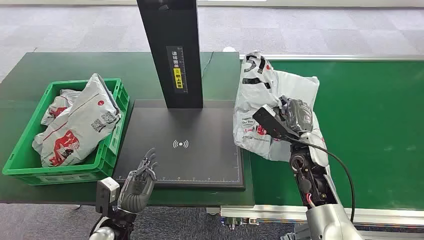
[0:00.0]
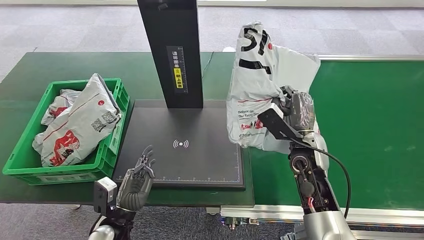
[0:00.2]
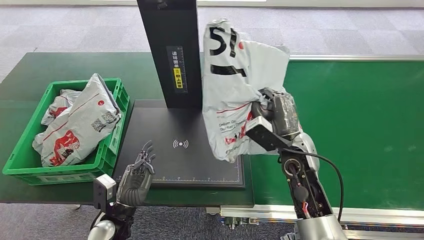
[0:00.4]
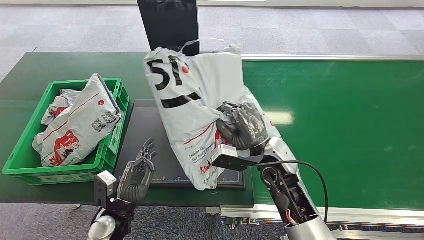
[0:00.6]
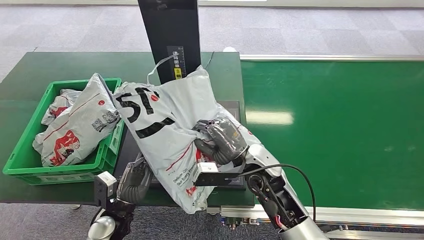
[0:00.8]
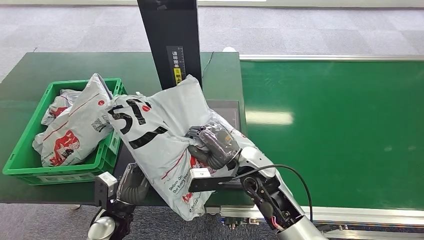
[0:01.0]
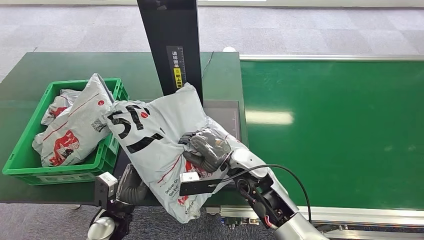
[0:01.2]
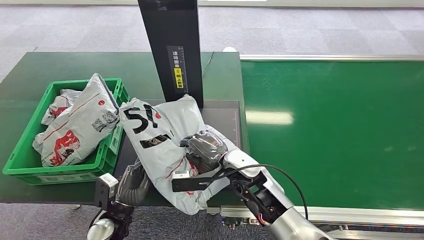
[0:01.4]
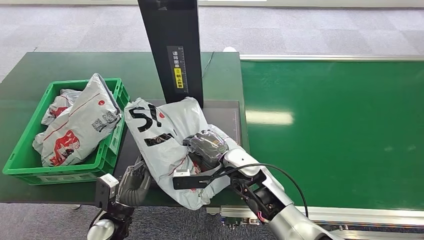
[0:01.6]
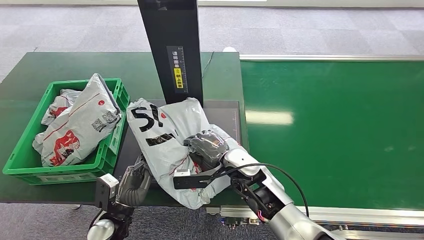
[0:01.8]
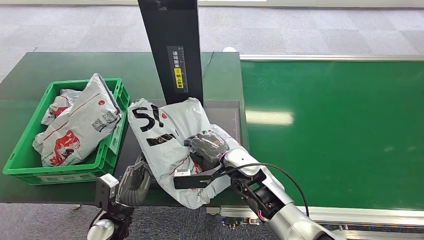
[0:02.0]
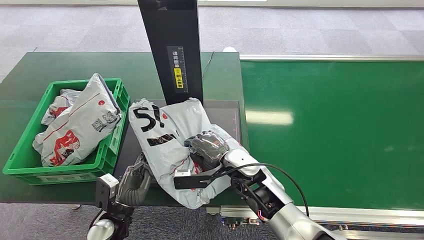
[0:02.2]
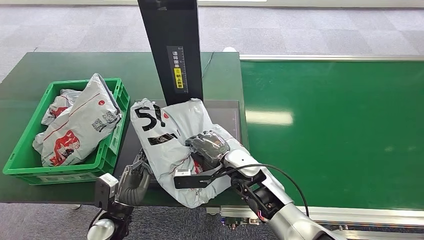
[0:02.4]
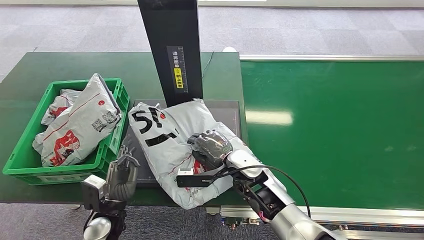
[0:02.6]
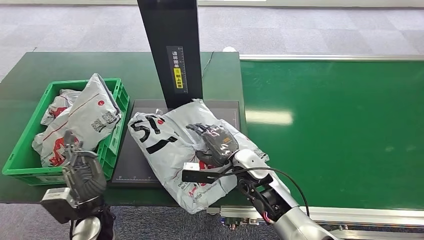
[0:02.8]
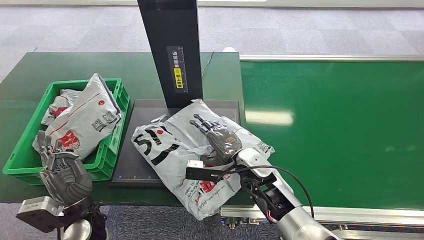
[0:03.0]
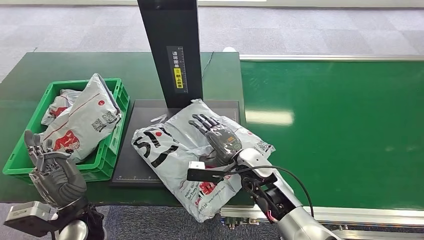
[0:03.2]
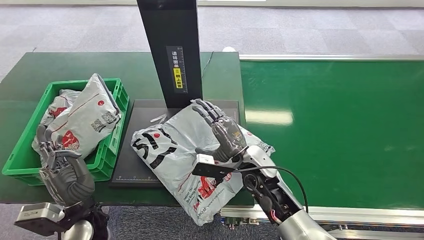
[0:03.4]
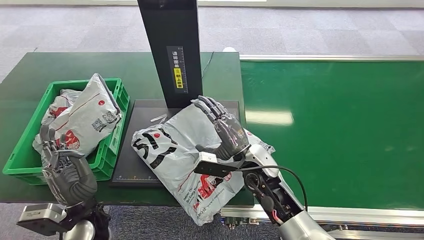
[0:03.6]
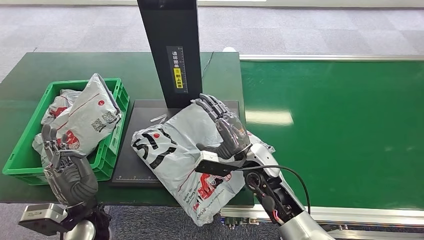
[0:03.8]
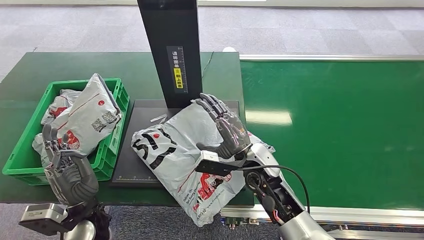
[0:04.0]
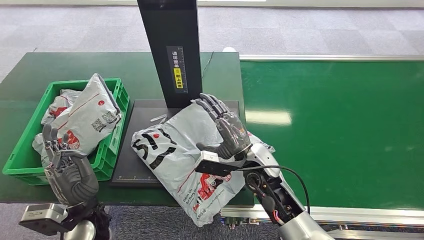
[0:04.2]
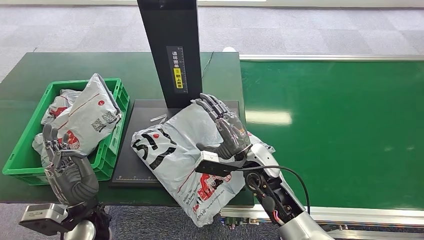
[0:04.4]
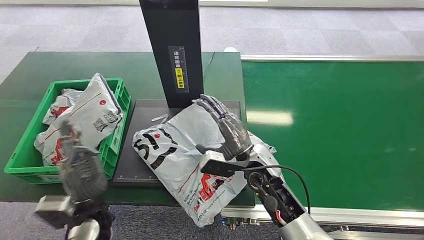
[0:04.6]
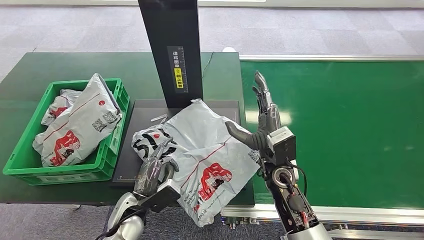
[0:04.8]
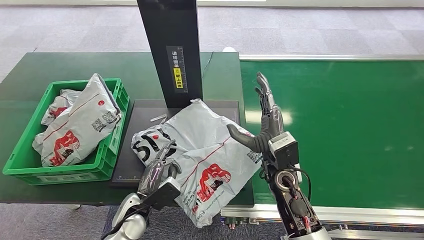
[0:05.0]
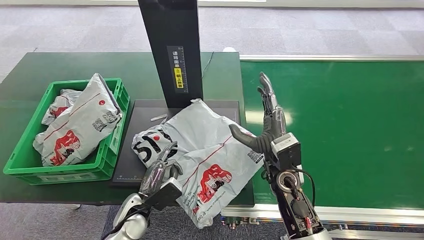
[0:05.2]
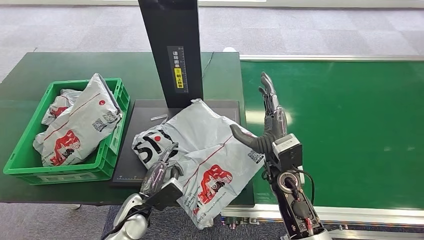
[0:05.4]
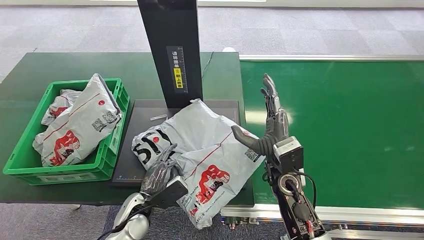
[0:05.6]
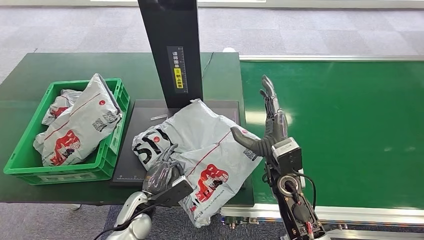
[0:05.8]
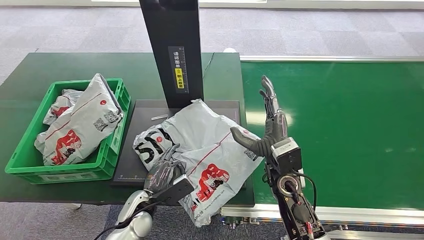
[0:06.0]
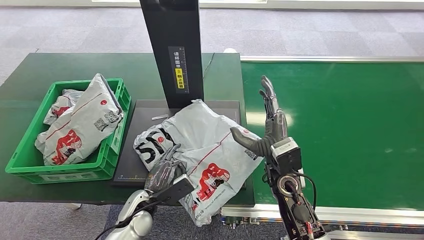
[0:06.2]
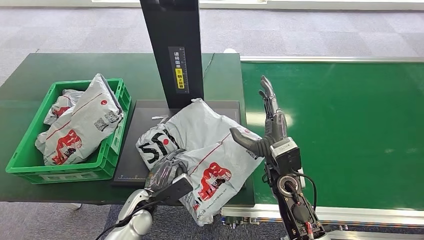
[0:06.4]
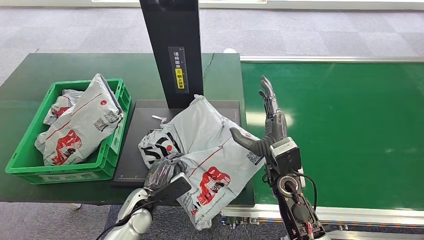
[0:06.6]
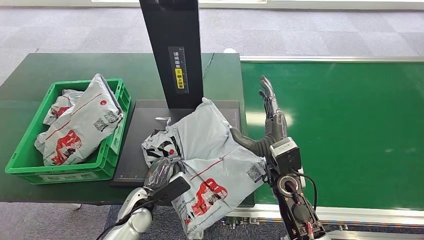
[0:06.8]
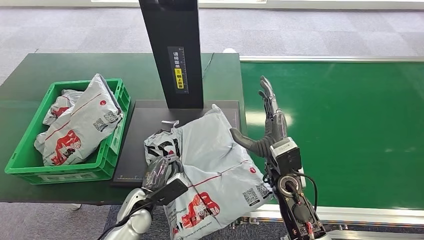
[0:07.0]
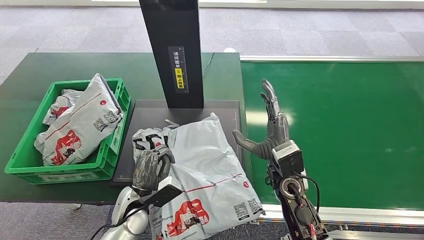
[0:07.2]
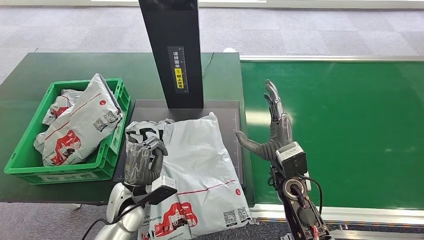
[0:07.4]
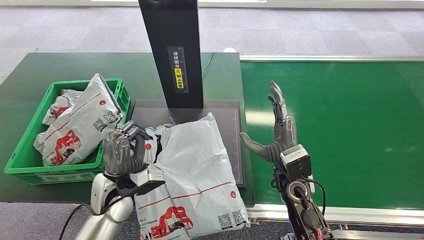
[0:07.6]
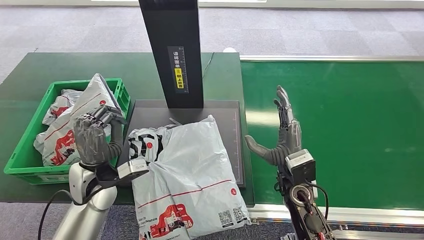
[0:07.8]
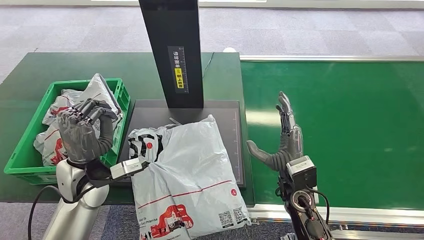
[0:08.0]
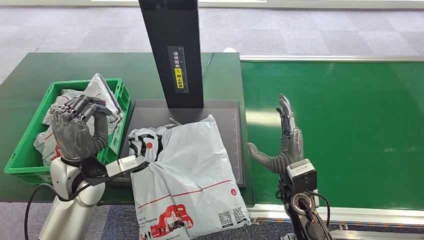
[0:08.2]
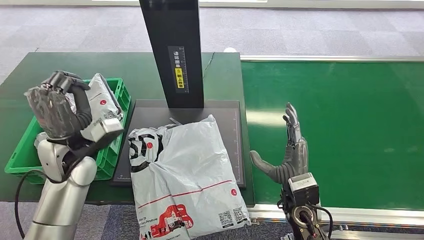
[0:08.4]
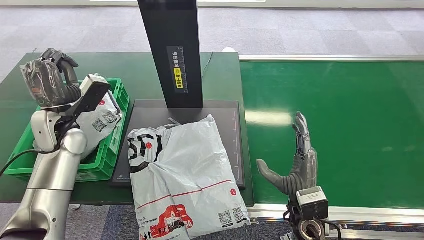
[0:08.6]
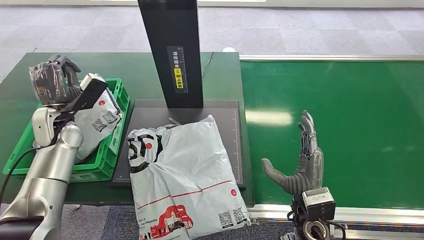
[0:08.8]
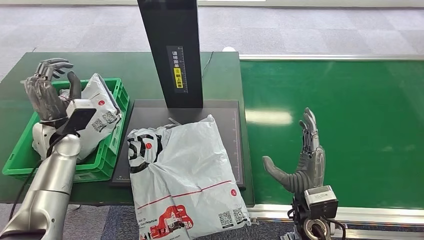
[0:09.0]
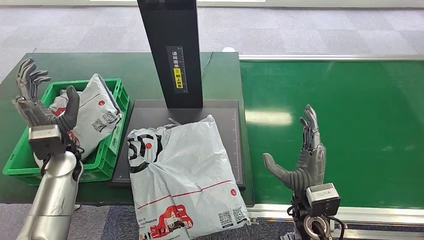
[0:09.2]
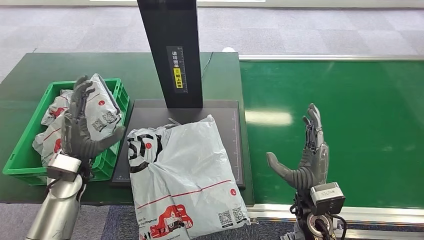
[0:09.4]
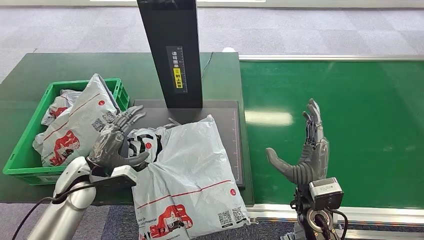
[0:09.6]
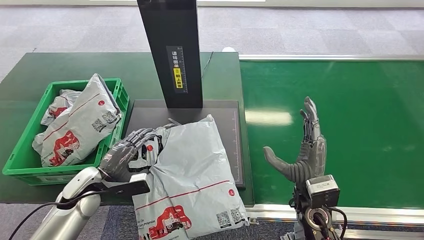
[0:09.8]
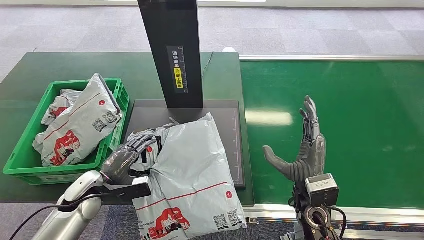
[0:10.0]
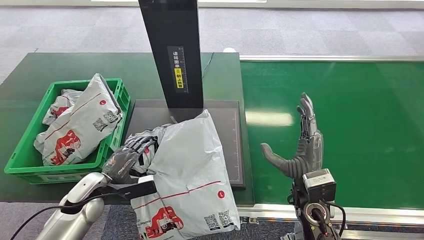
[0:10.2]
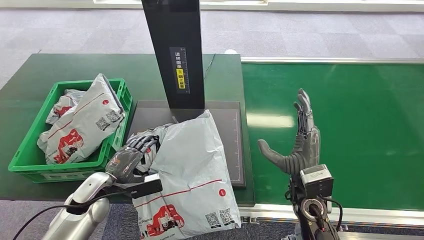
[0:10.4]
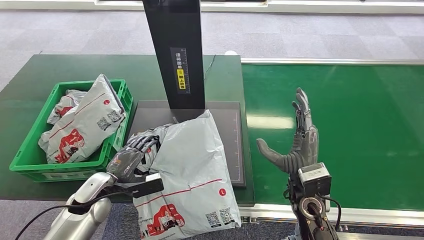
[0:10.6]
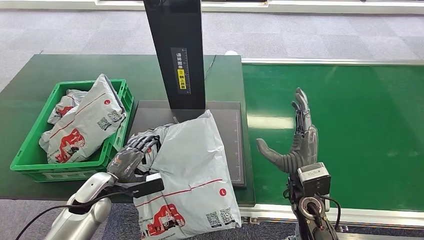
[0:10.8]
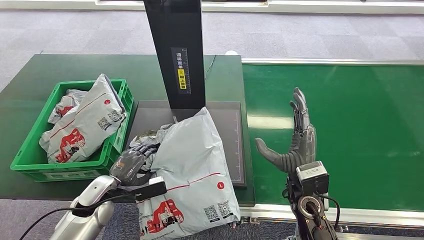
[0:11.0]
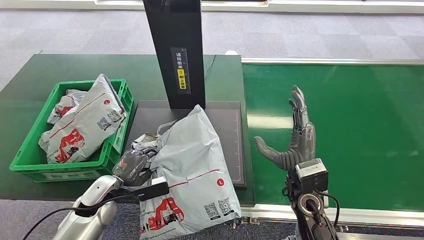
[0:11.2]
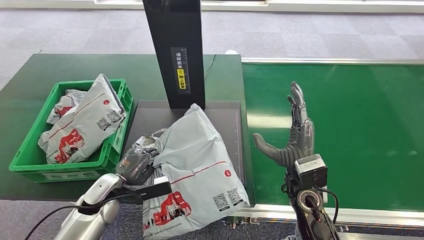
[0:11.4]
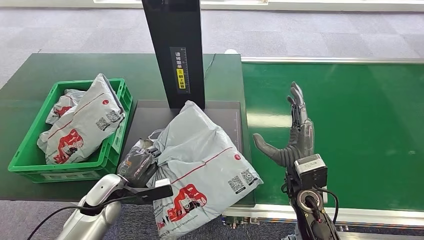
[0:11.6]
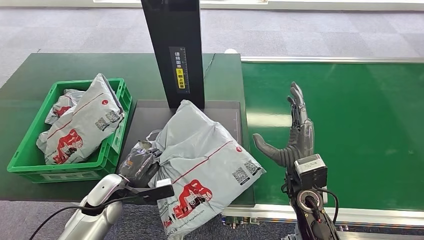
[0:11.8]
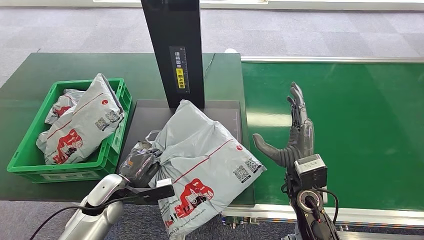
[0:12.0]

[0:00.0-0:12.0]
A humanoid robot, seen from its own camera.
0:01.6 to 0:03.0: The left hand travels upward by about 5 cm.
0:06.0 to 0:07.6: The left hand is displaced upward by some 10 cm.
0:10.4 to 0:12.0: The hands move only a little.

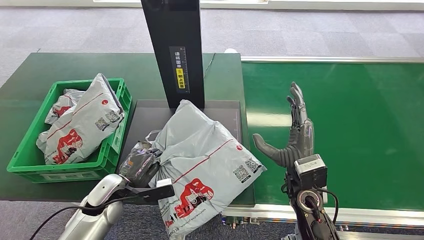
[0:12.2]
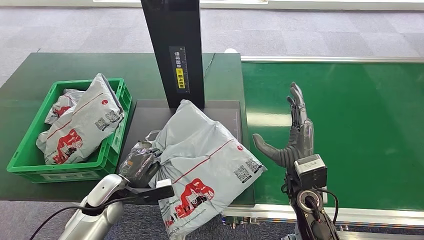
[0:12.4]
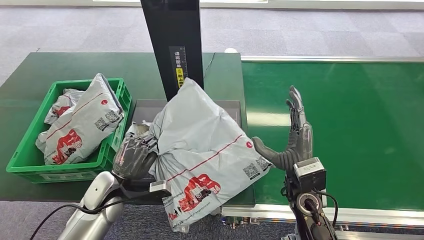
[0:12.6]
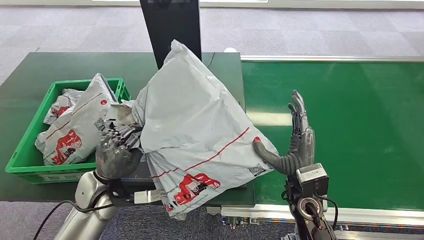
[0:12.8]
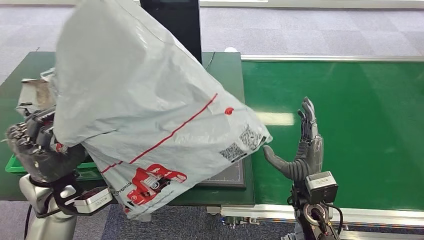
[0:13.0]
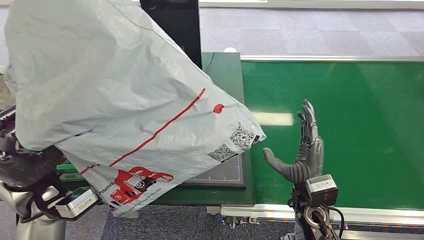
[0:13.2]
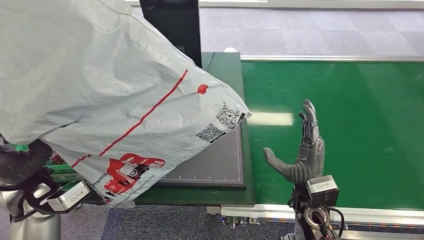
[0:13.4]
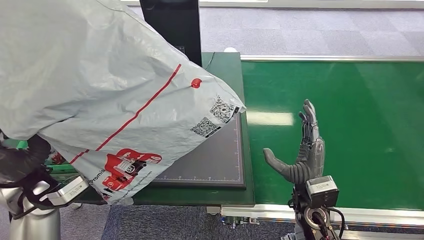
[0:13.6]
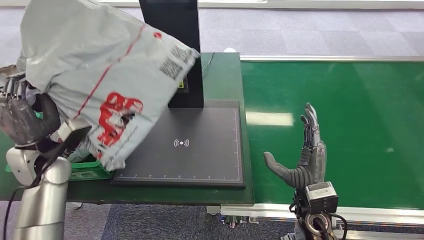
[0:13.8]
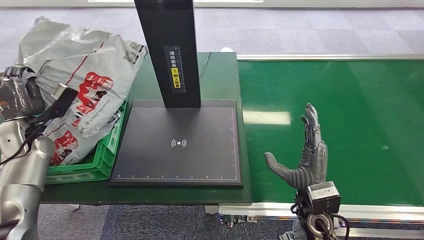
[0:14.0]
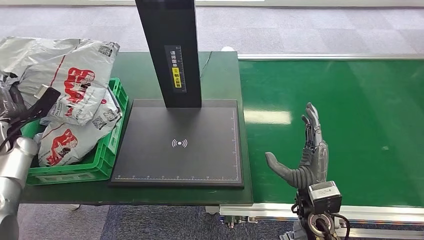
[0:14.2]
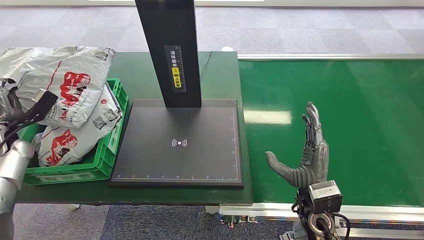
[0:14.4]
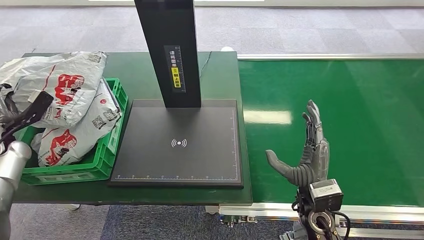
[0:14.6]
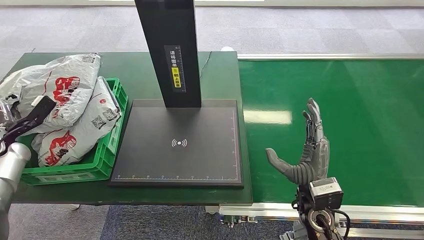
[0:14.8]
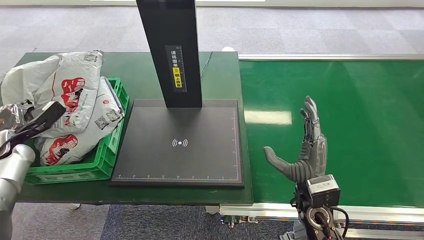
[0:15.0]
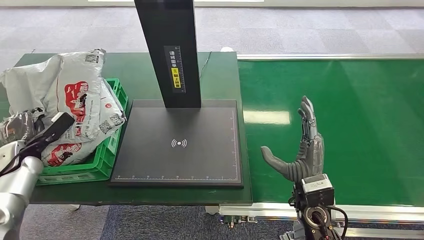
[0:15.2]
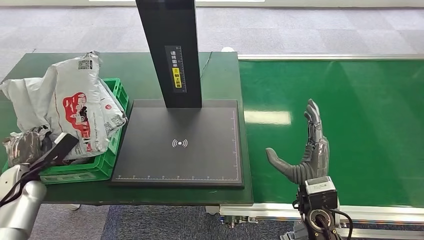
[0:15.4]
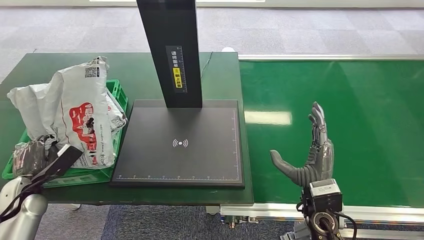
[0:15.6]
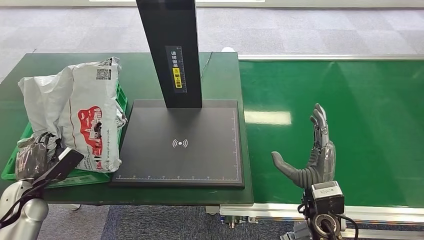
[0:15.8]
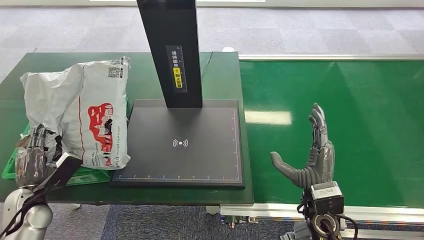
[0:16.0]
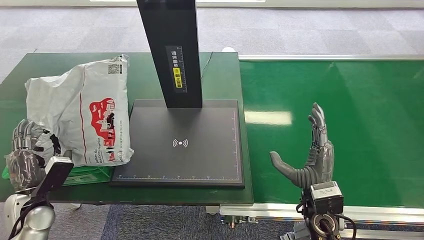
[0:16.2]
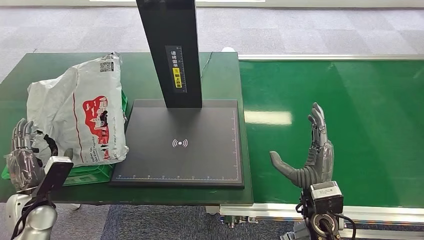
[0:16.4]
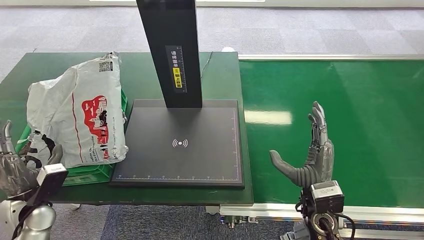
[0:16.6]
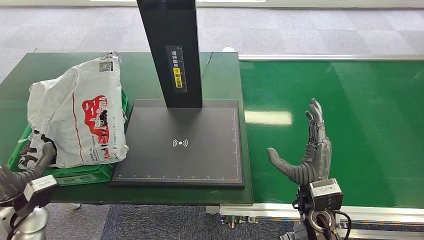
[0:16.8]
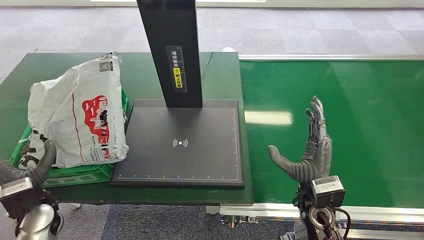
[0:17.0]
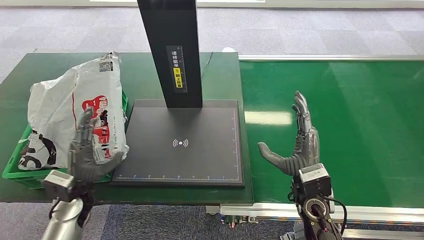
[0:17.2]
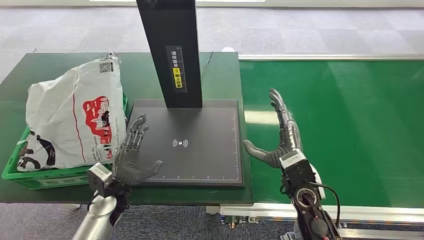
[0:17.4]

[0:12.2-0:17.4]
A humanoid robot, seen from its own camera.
0:15.6 to 0:17.4: The right hand shifts by roughly 5 cm; the left hand travels to the right by roughly 25 cm.
